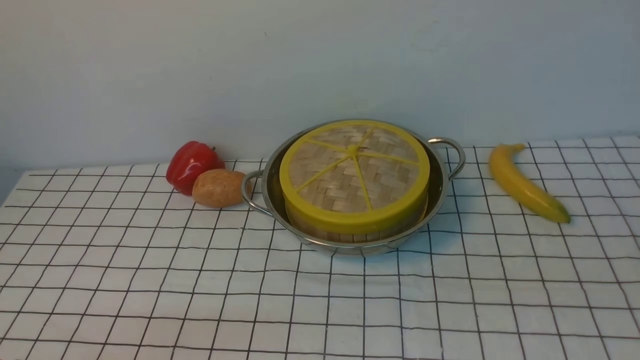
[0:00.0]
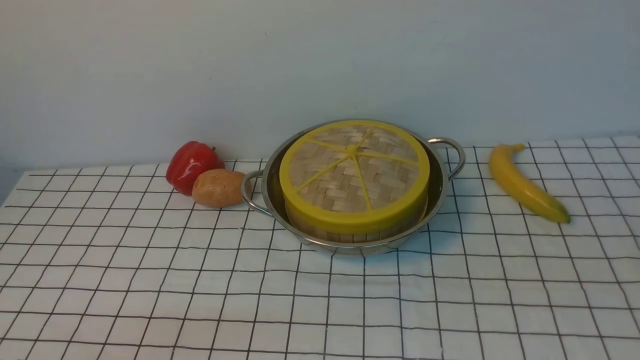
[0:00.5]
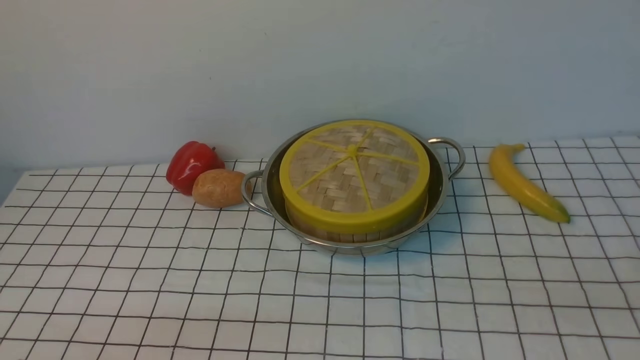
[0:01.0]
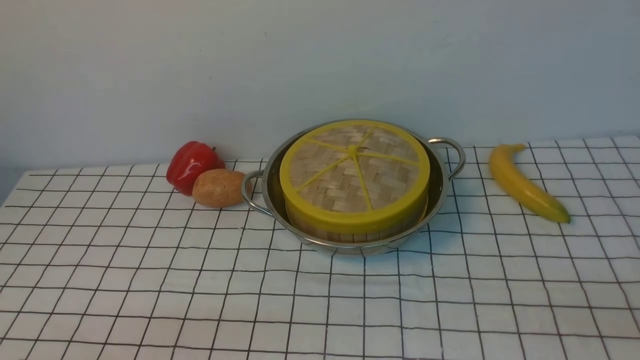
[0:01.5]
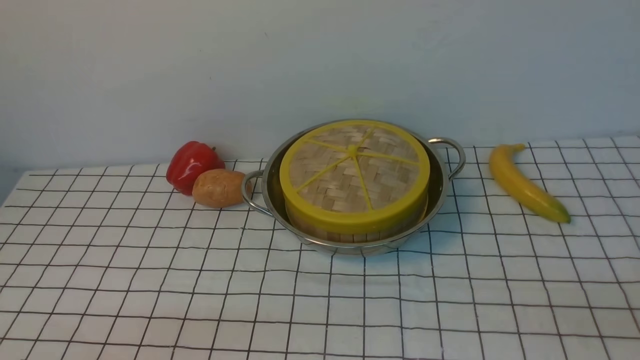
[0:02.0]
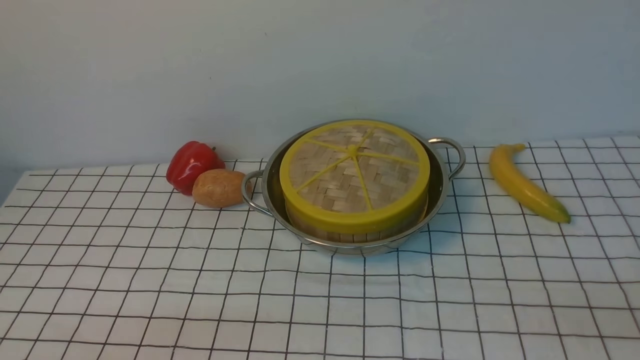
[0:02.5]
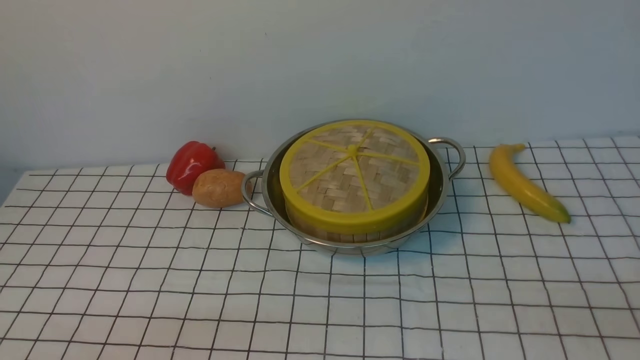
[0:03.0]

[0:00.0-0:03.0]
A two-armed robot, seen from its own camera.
Task of the whole recording: place the steamer in the pot on the white tablecloth, and put the lid on the steamer.
0:01.5 to 0:03.0: Both grippers stay put.

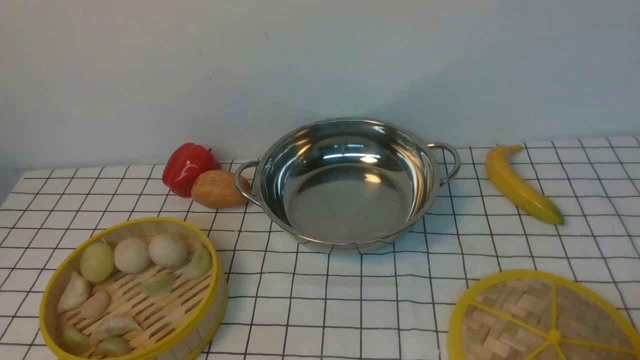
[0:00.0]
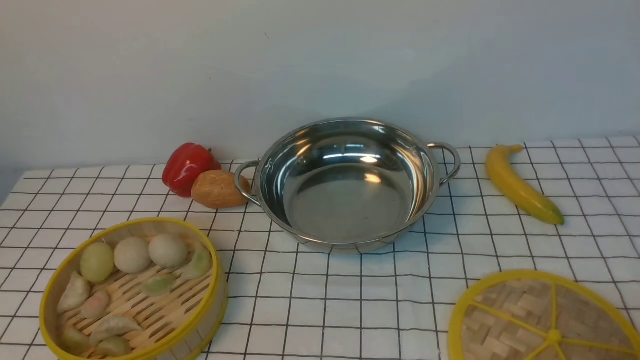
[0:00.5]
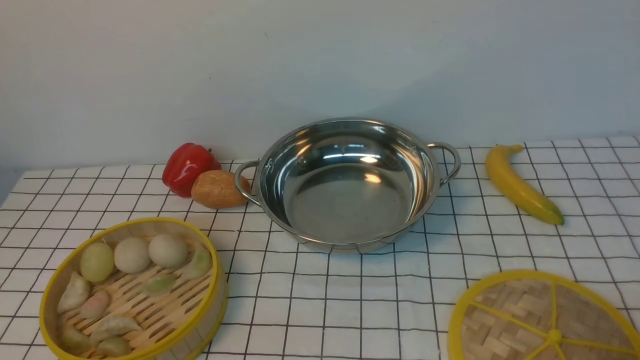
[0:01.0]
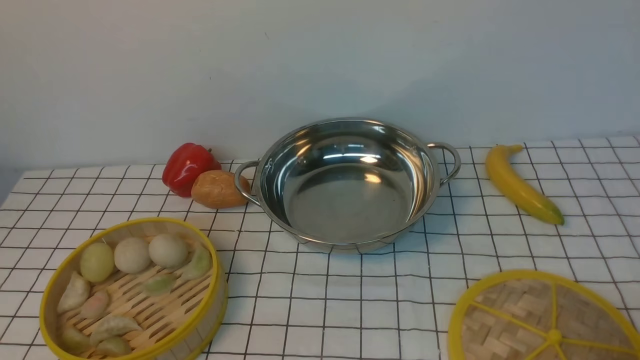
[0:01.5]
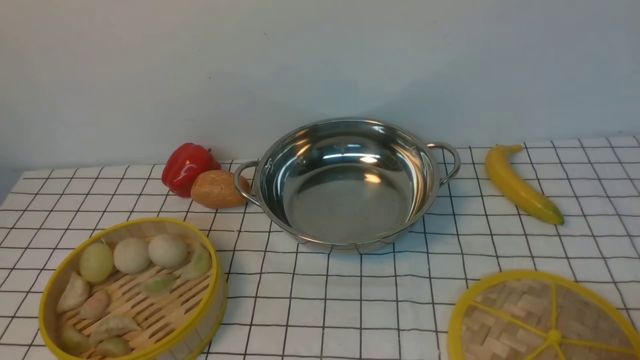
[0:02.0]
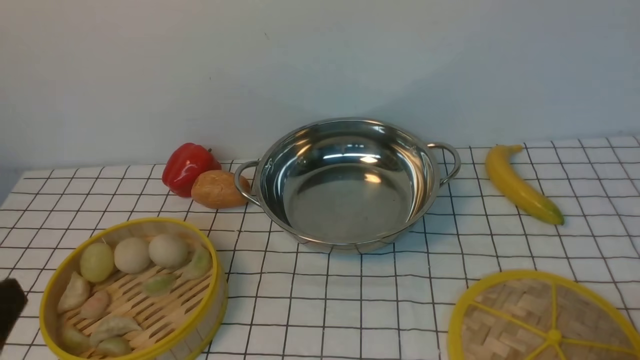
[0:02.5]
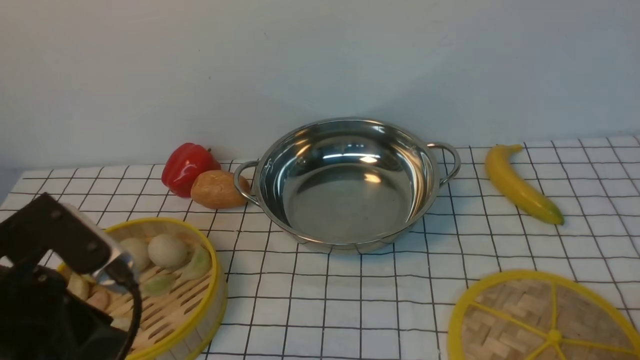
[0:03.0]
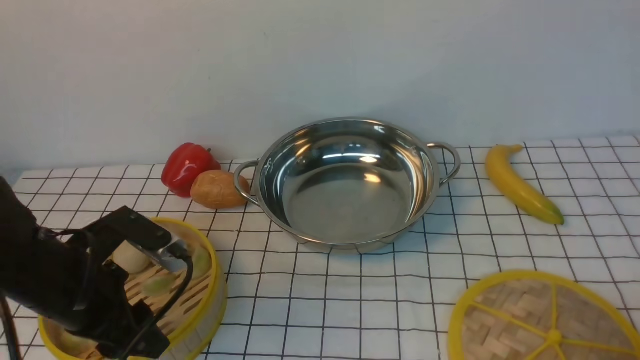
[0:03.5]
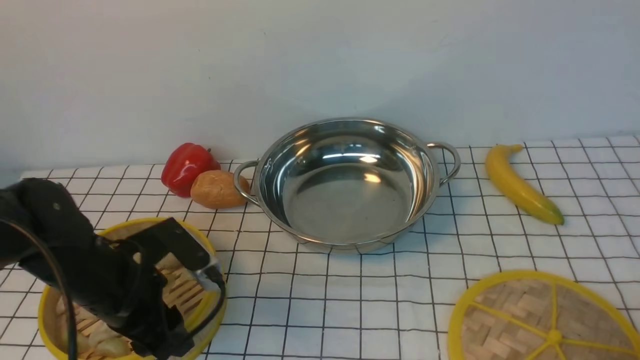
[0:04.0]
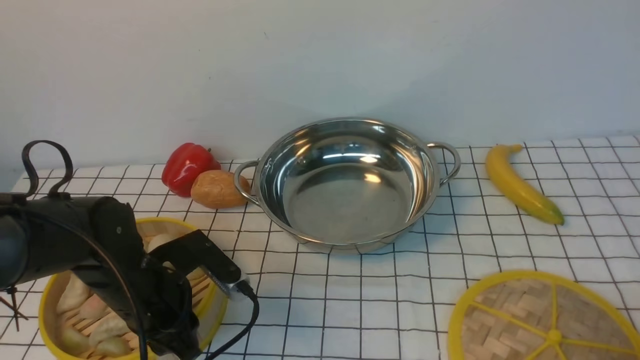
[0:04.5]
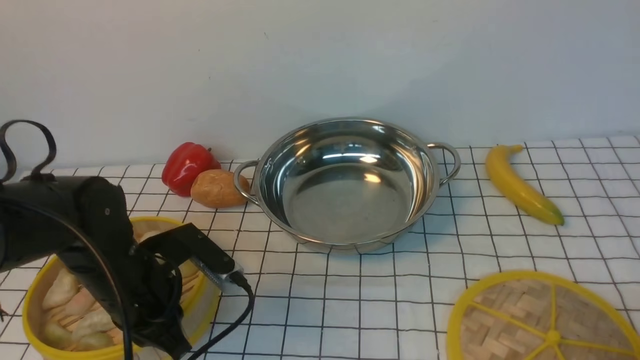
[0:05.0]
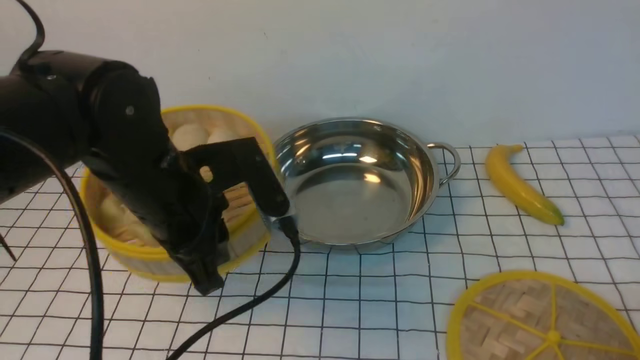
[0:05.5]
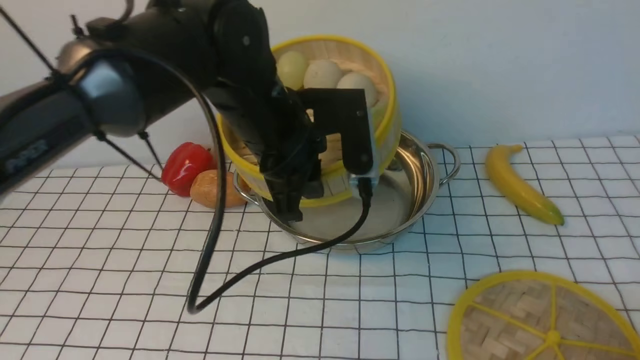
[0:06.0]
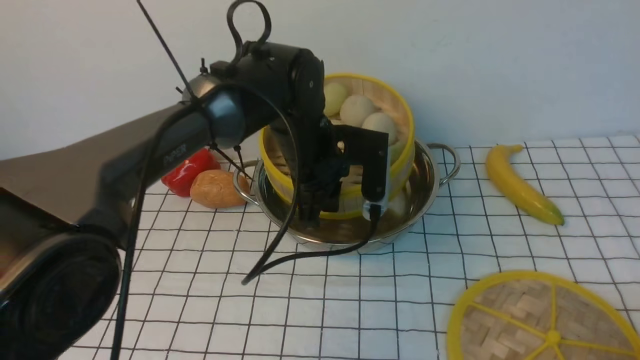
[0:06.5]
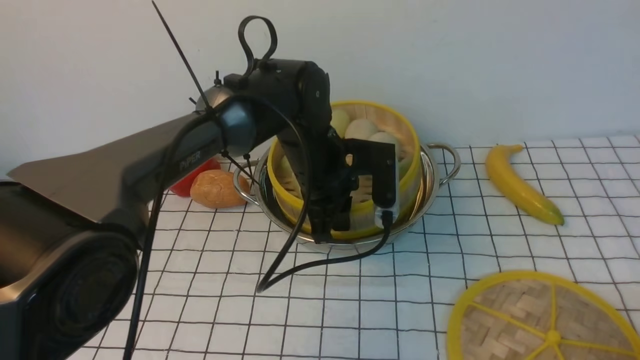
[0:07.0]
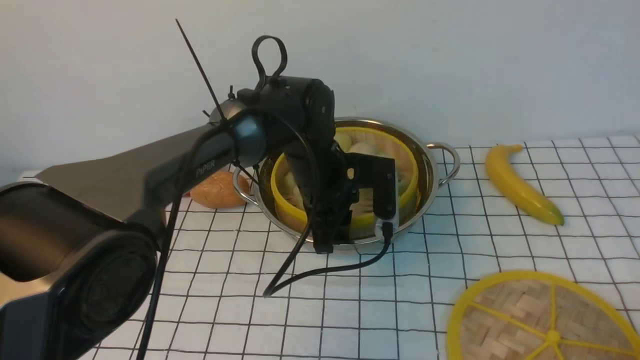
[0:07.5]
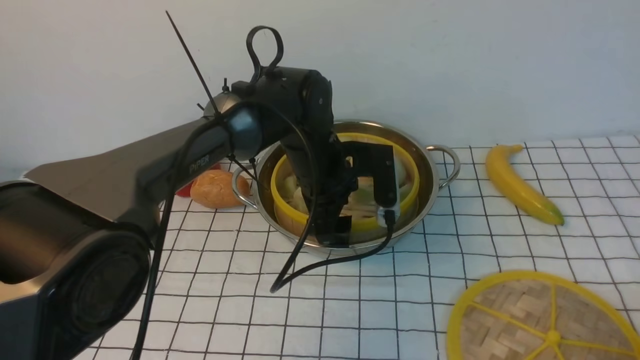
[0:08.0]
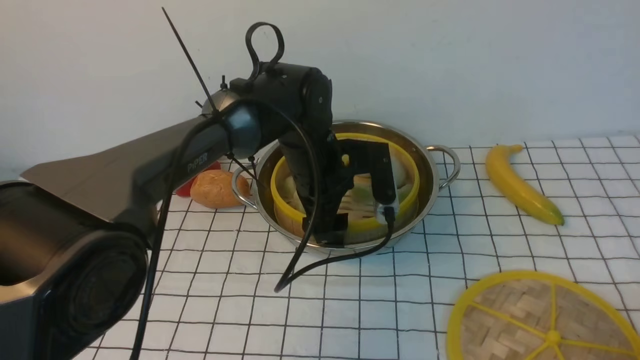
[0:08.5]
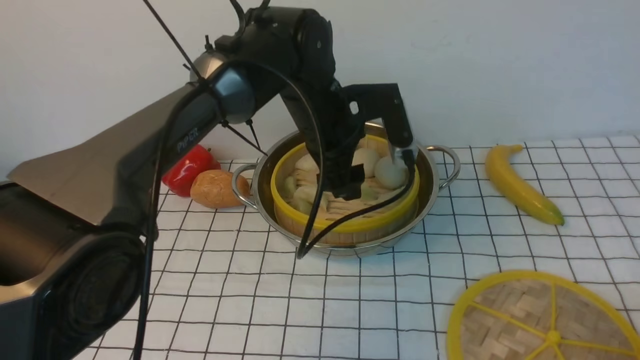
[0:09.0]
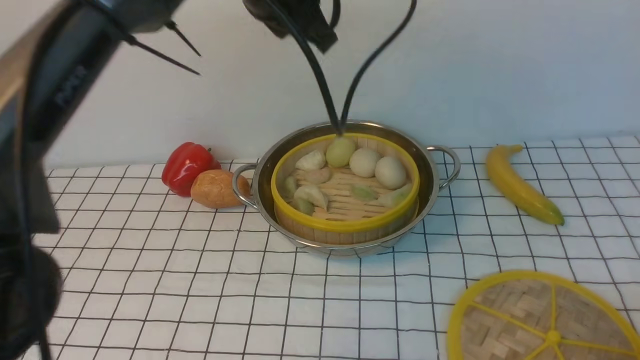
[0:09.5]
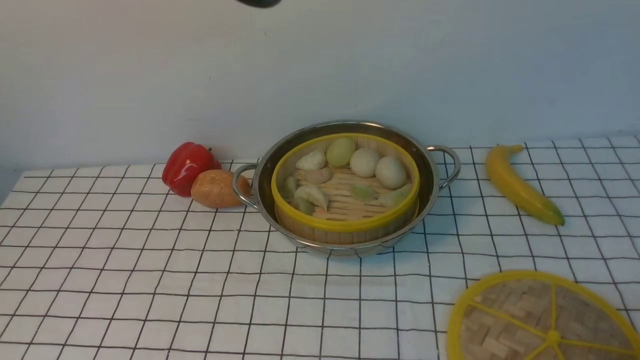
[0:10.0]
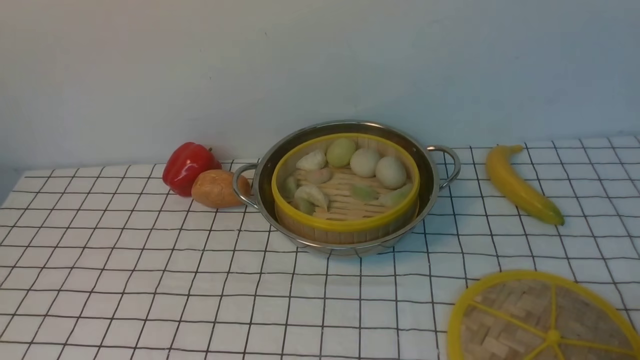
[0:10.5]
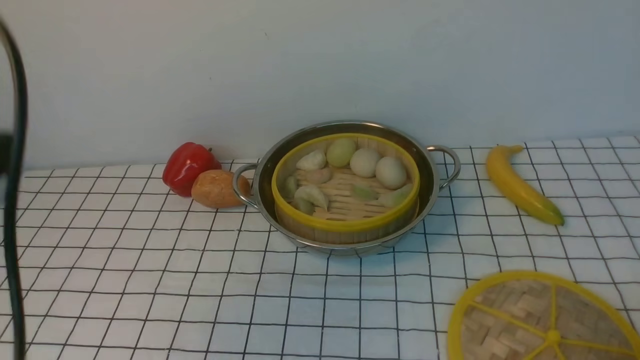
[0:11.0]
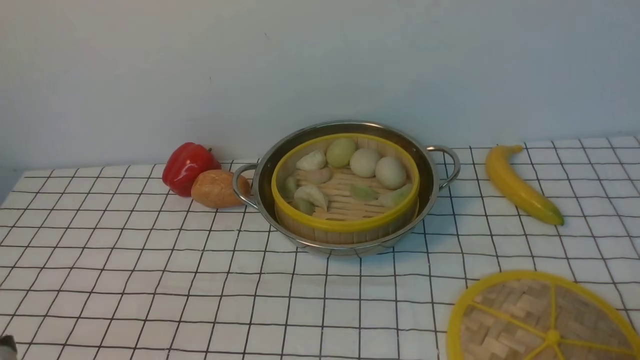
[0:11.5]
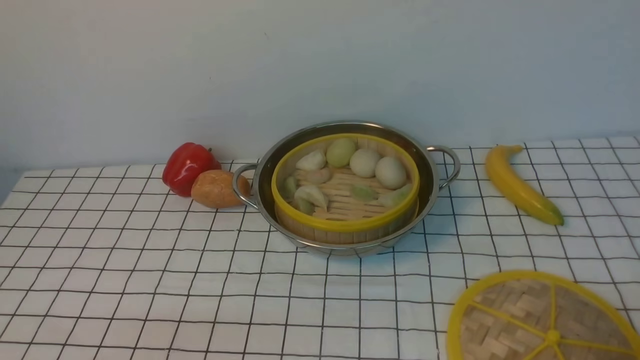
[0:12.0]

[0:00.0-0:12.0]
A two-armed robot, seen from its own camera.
Task of the whole recording: place the steamer in the pot on the white tablecloth, and put the lid on the steamer.
Step, 0:00.0 to 0:04.5: use the left arm to lift the steamer closest to it.
Step, 0:05.0 to 0:08.5: use the left arm to put the steamer into the iron steamer pot in the middle.
0:02.0 to 0:04.0: The left gripper heads forward, covering roughly 20 cm.
0:04.0 to 0:06.0: The left gripper shifts approximately 20 cm to the right, upward and forward, and closes.
0:06.0 to 0:08.0: The left gripper moves downward and forward, roughly 10 cm, and opens its fingers.
0:08.0 to 0:10.0: The left gripper moves upward, about 35 cm, and closes its fingers.

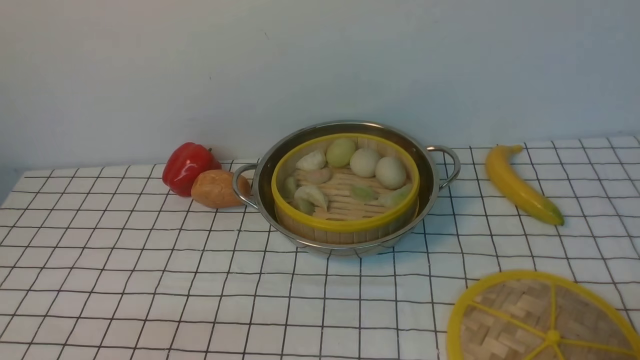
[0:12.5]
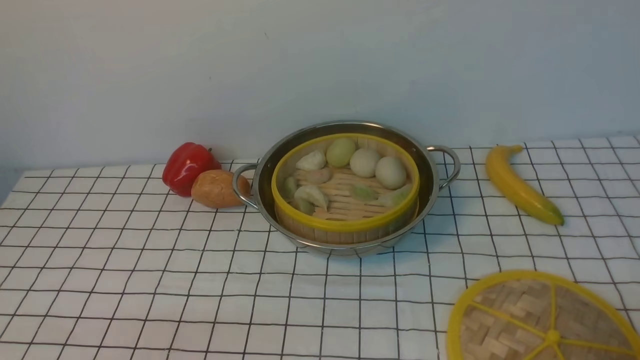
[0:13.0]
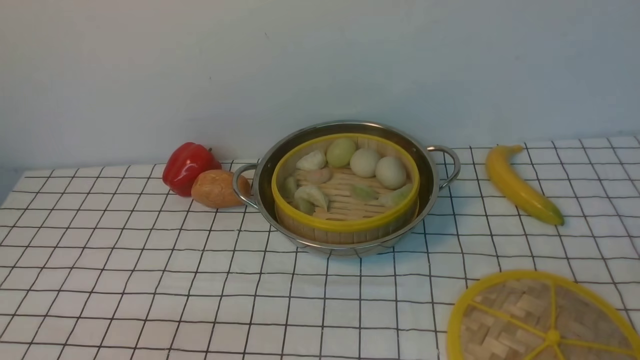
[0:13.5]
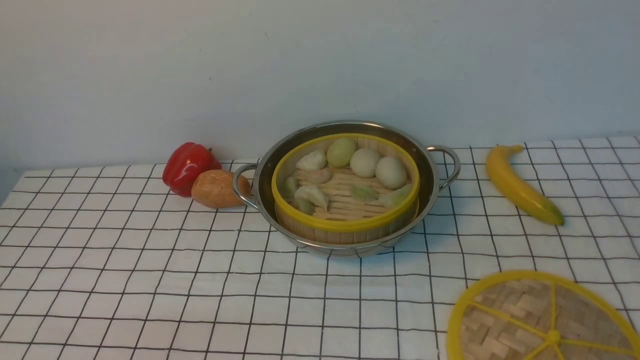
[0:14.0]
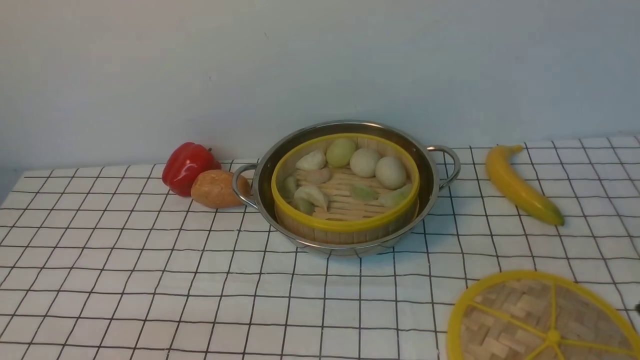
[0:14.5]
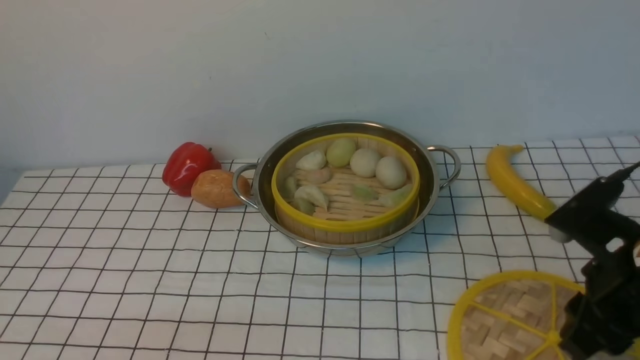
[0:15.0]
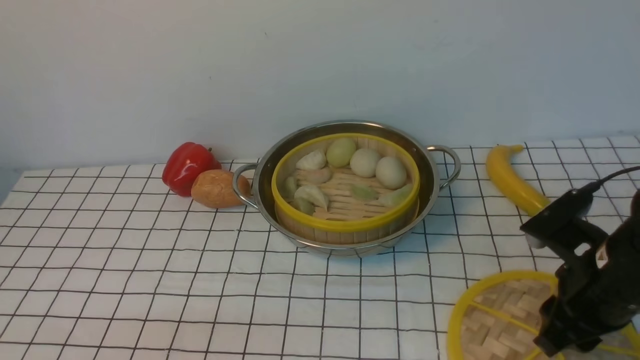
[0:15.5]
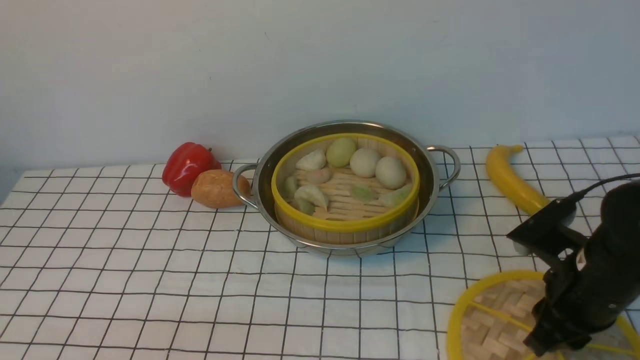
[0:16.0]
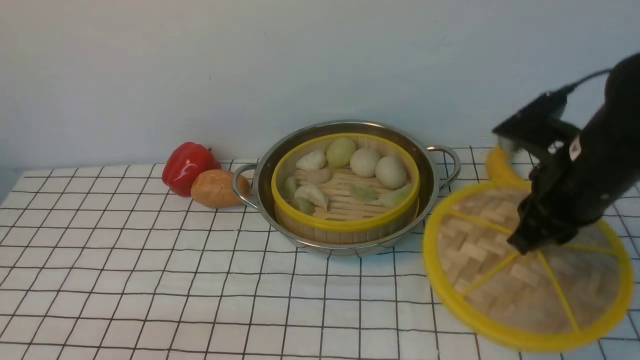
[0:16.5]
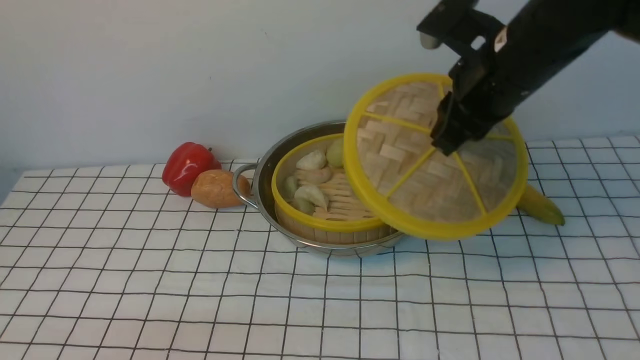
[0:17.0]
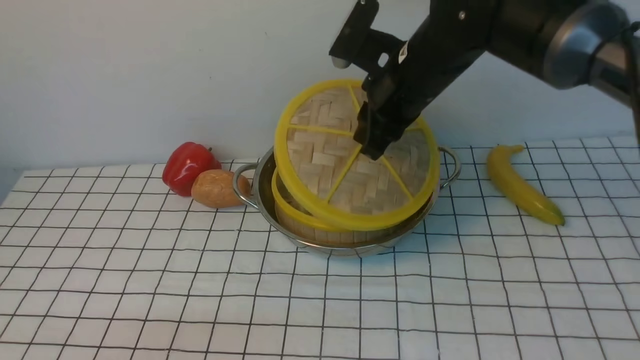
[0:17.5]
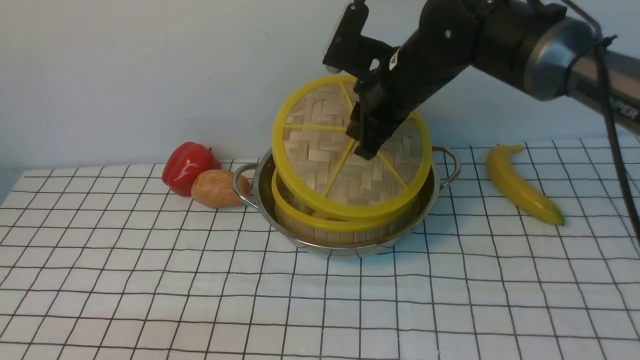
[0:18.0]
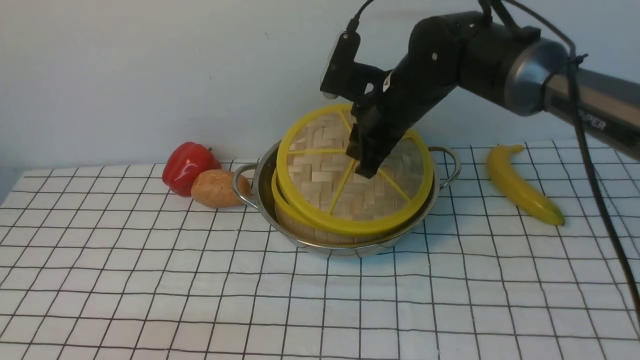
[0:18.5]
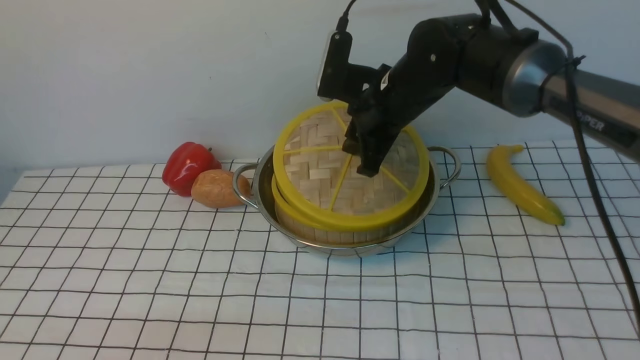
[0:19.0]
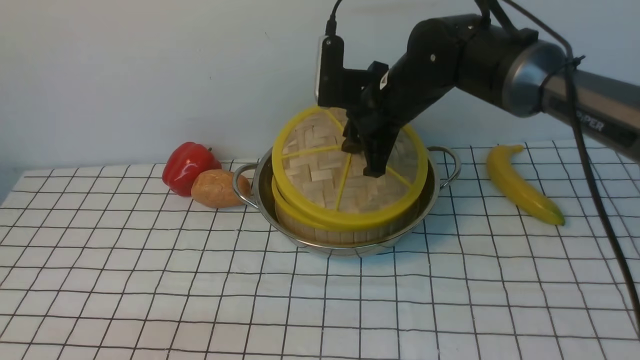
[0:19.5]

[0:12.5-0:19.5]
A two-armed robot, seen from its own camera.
Task of the whole recording: place the steamer in the pot on the white tablecloth, and put the lid on the steamer.
Step, 0:12.5 to 0:16.0: use the right arm to lift the lid of the steamer.
0:14.5 to 0:16.0: The right gripper moves downward and forward, some 15 cm.
0:16.0 to 0:17.5: The right gripper travels forward, to the left and upward by about 25 cm.
0:17.5 to 0:19.5: The right gripper ends up about 5 cm from where it was.
